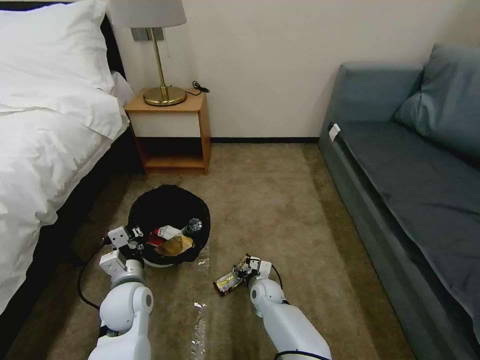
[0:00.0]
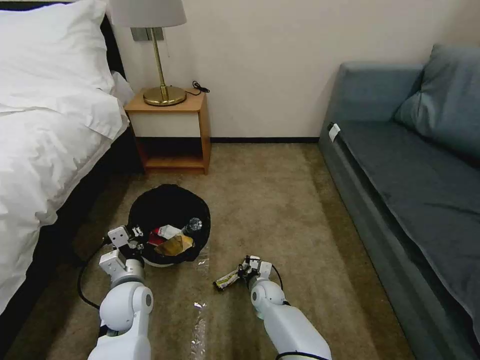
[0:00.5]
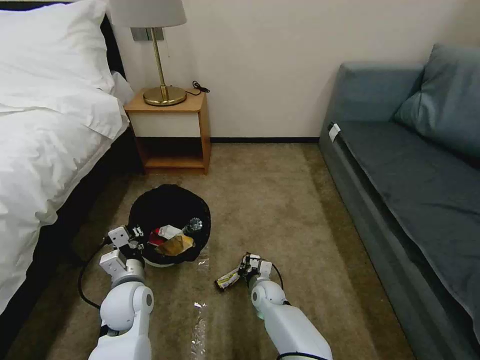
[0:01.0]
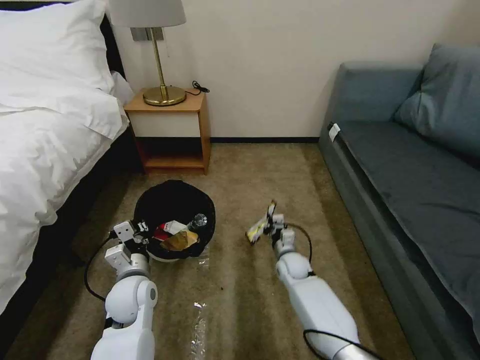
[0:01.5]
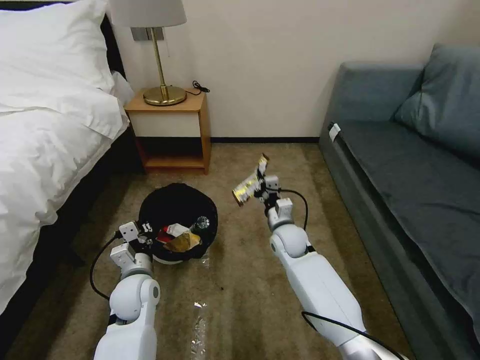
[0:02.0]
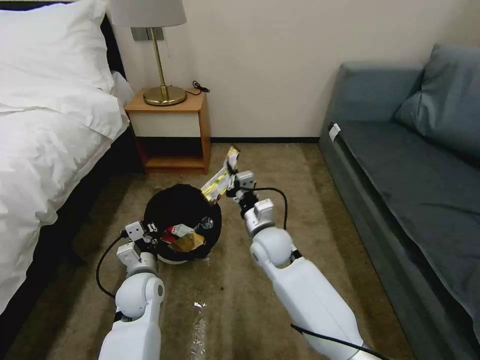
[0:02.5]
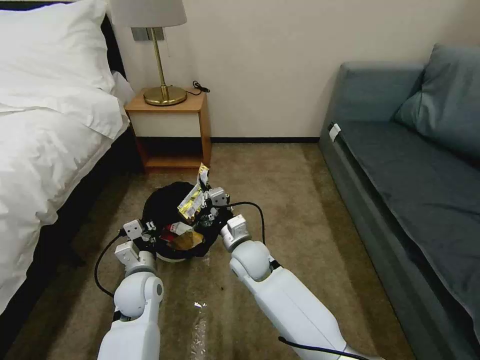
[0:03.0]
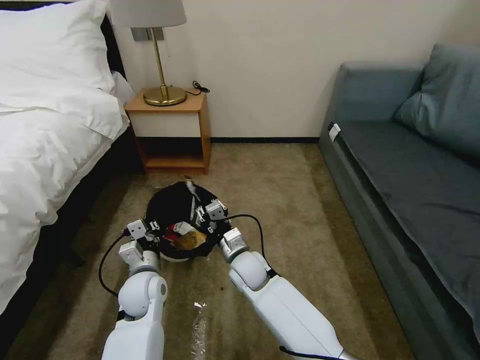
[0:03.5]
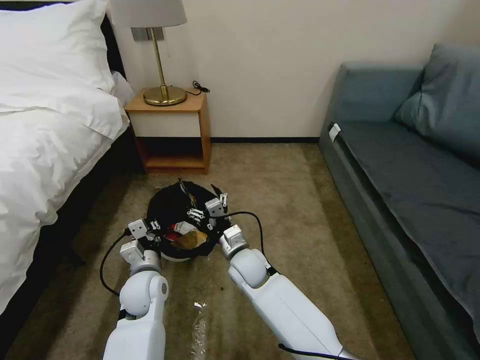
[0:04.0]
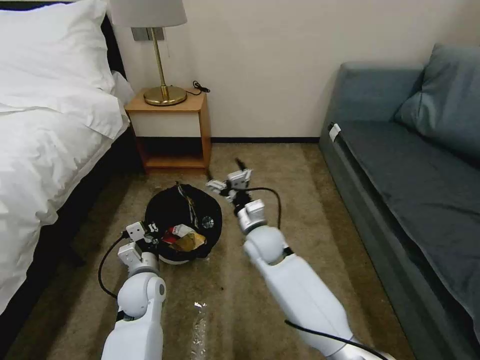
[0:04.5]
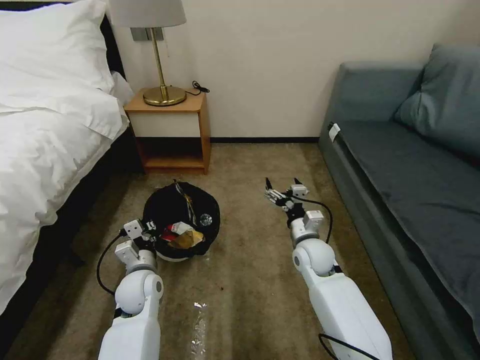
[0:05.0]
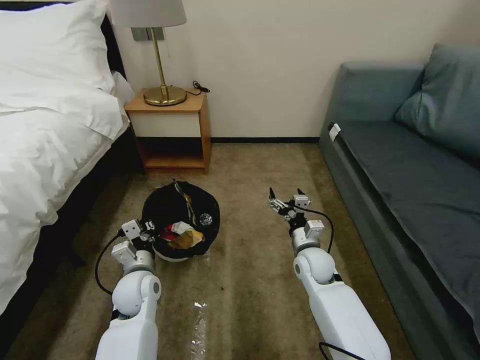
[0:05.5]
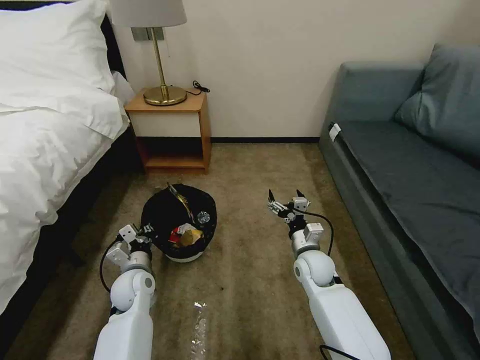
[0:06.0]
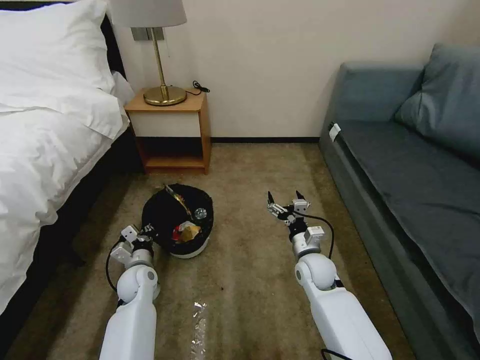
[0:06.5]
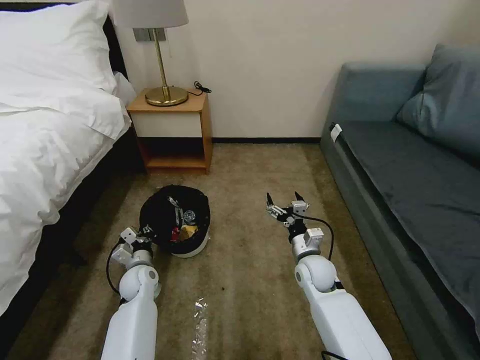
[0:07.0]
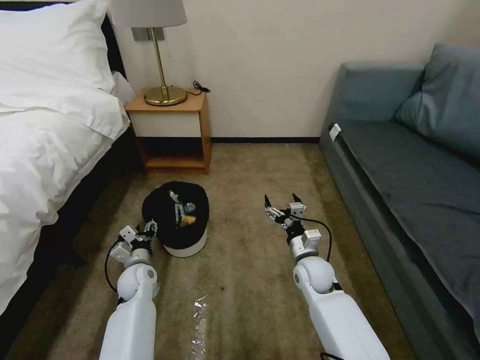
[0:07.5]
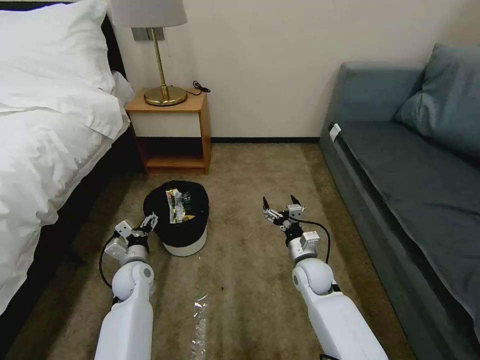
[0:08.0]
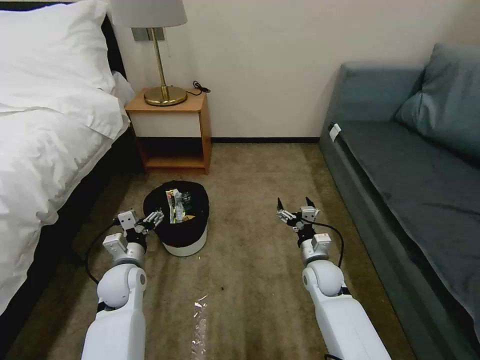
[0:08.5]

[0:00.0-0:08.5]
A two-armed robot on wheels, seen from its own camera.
Task of the whole recording: Pick up the trash bin, then pick up the garbage on the floor and place it into the trash bin.
0:00.0 to 0:02.0: The right gripper goes approximately 20 cm upward and forward, and closes.
0:02.0 to 0:04.0: The right gripper moves to the left and backward, roughly 15 cm, and opens its fingers.
0:04.0 to 0:06.5: The left gripper heads downward, to the left and forward, covering approximately 10 cm; the right gripper shifts approximately 20 cm to the right.
0:06.5 to 0:08.5: The left gripper is displaced upward by roughly 10 cm, and opens.

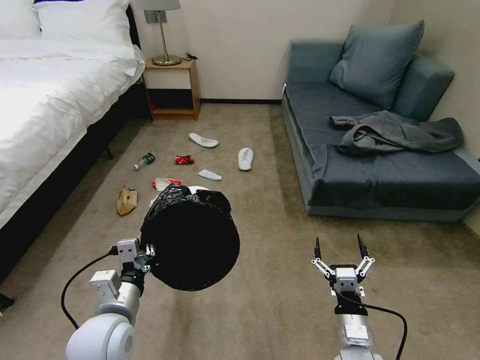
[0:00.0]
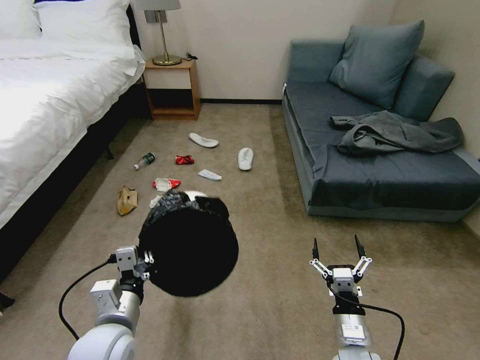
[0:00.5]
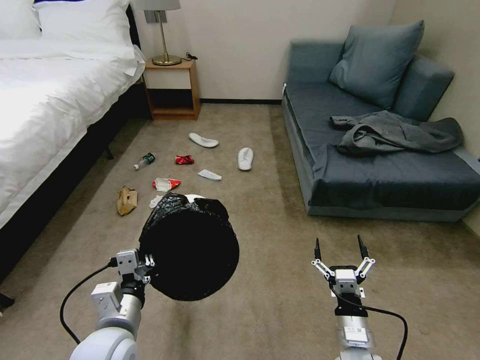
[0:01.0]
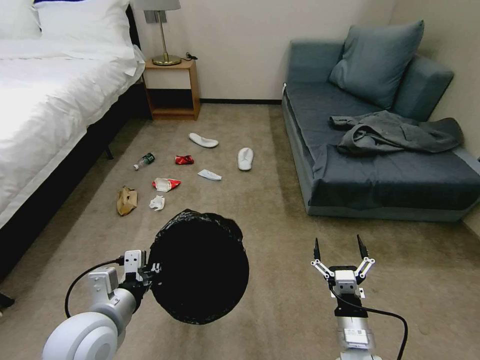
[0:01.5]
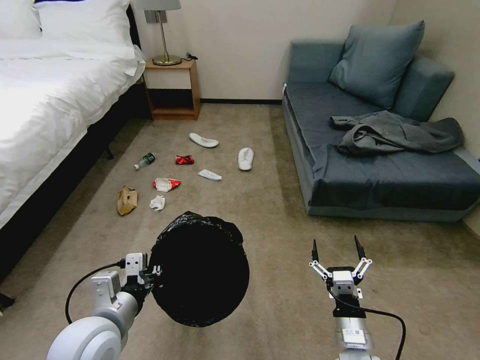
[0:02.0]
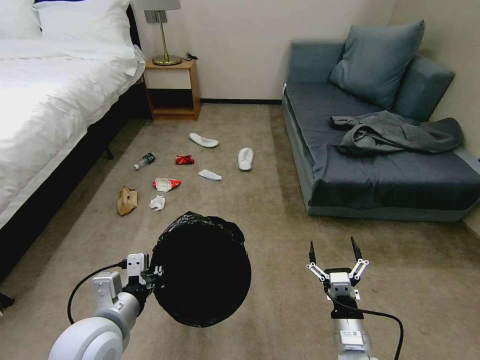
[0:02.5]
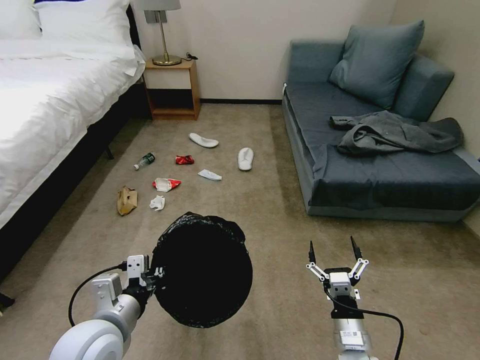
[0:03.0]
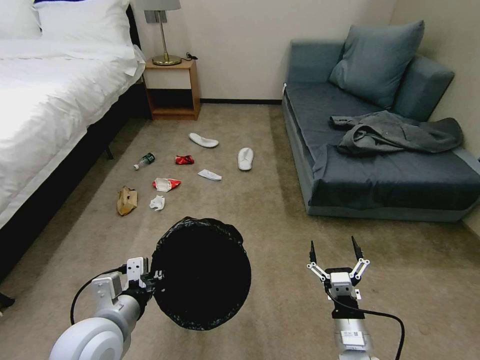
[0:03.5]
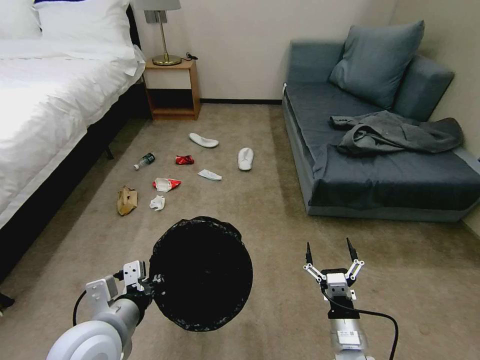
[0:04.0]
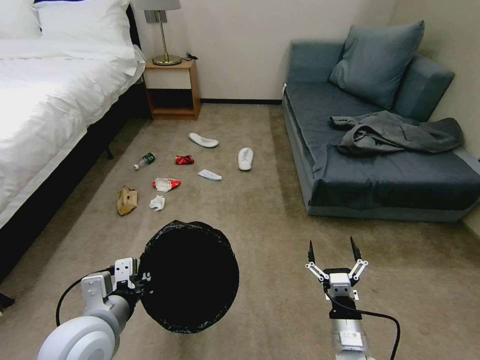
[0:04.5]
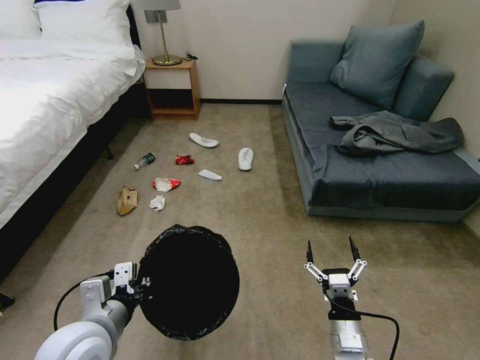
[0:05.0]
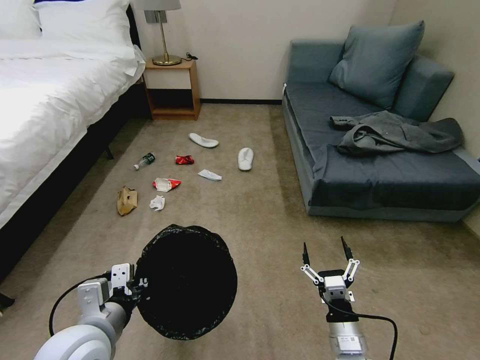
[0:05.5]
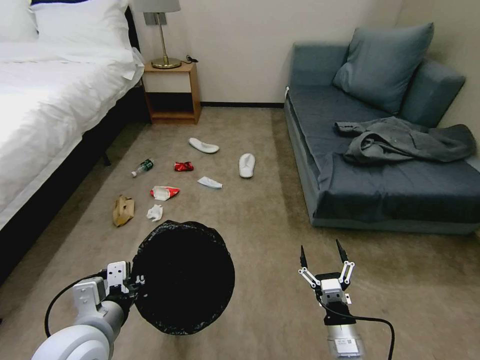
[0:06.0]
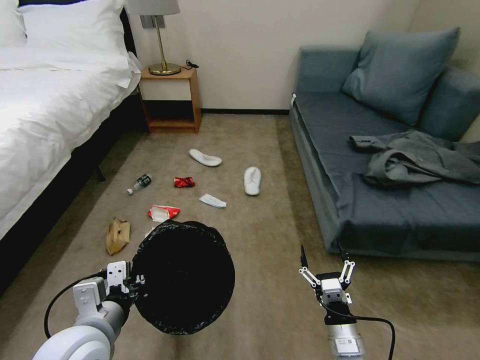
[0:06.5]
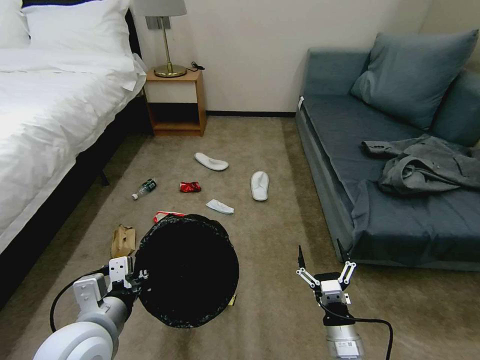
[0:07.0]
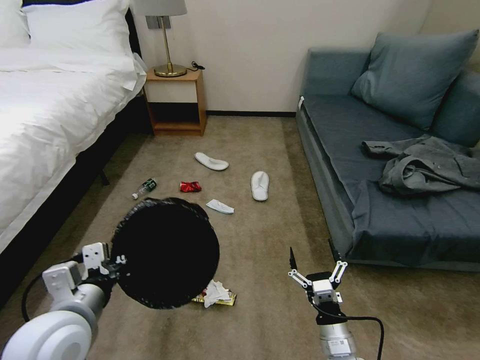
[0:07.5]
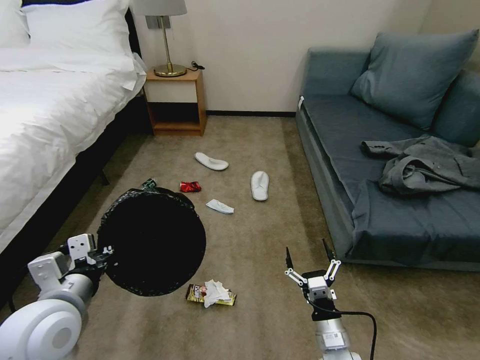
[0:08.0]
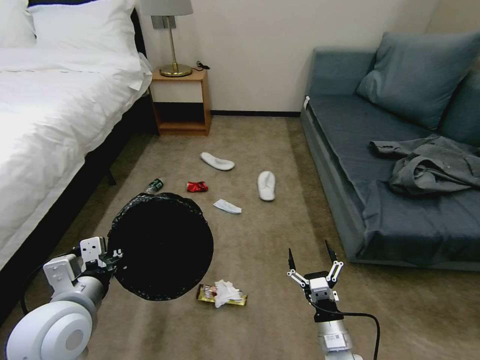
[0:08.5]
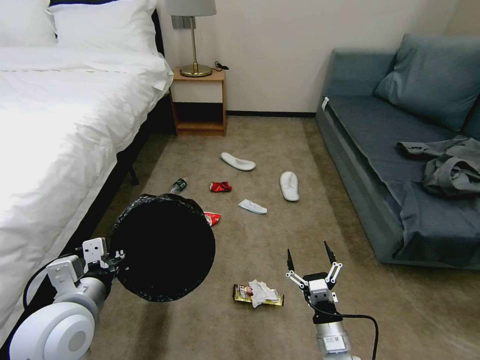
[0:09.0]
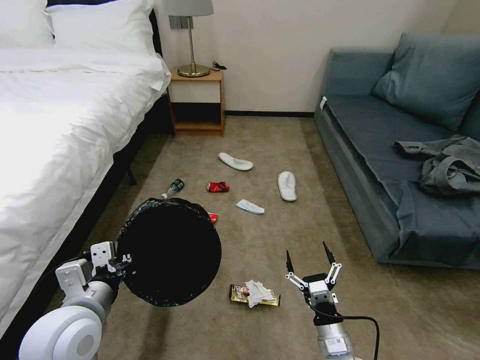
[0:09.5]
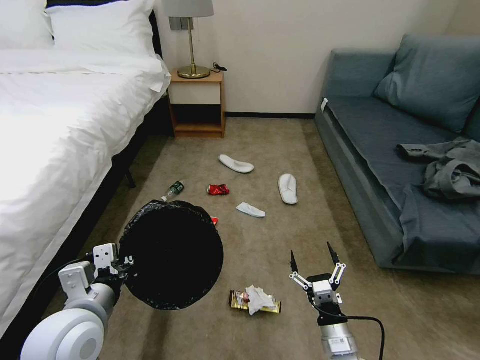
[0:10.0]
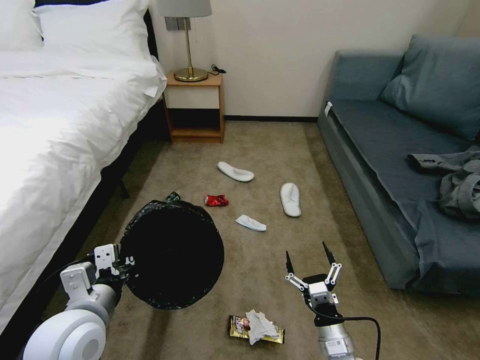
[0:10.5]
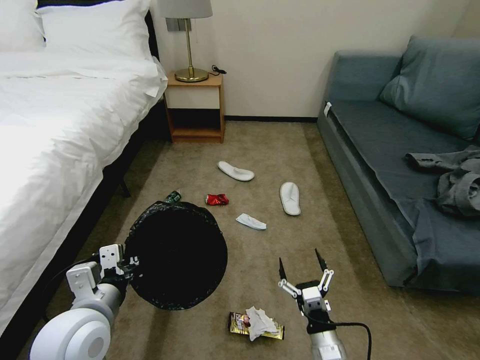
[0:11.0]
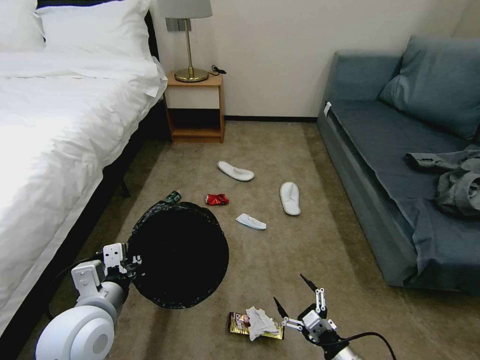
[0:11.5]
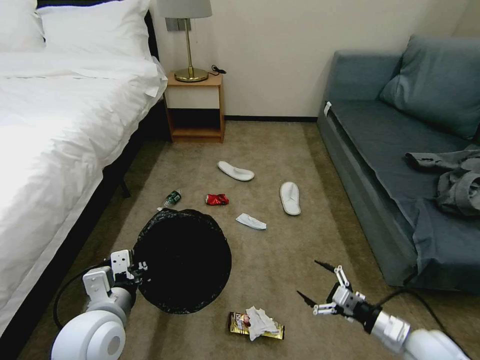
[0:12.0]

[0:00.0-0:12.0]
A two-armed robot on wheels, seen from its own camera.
Task of the whole recording: Pick up the trash bin, then pick up the garbage on the floor and place it into the trash bin.
0:02.0 to 0:04.0: There are only small adjustments of the grippers.
0:06.0 to 0:08.0: The left gripper ends up approximately 5 cm from where it was.
0:10.0 to 0:12.0: The right gripper shifts roughly 15 cm to the right and upward.

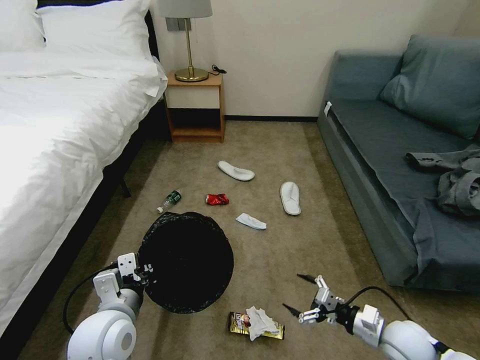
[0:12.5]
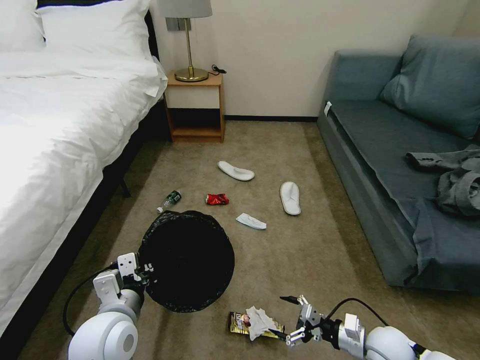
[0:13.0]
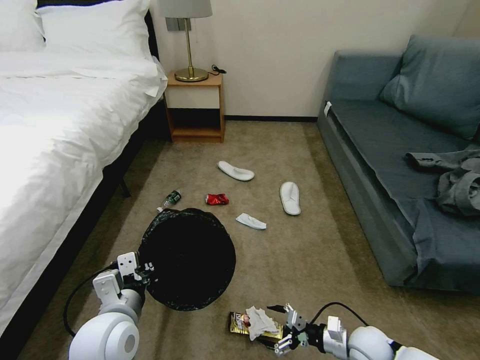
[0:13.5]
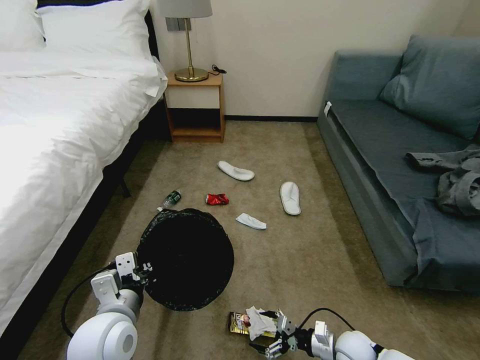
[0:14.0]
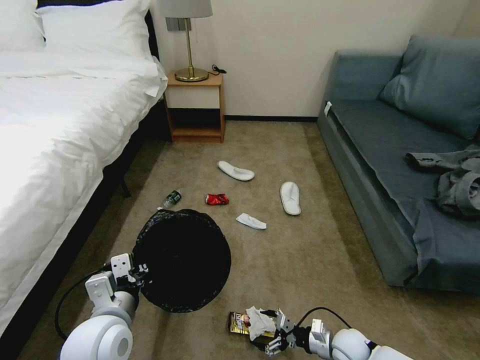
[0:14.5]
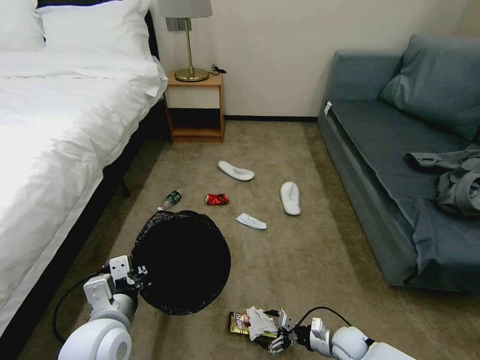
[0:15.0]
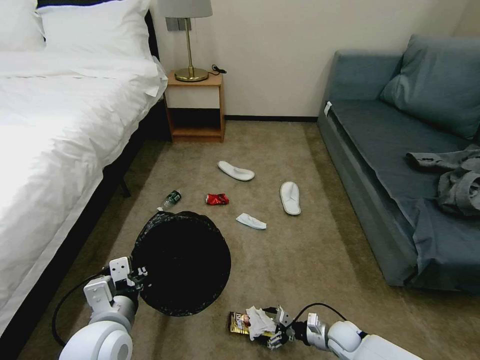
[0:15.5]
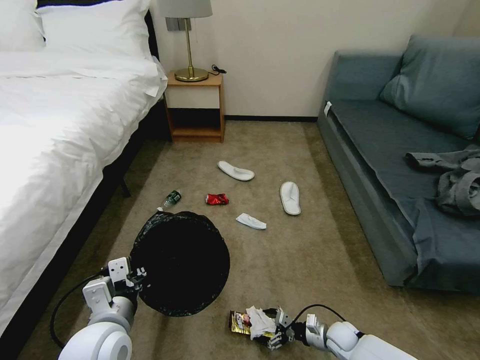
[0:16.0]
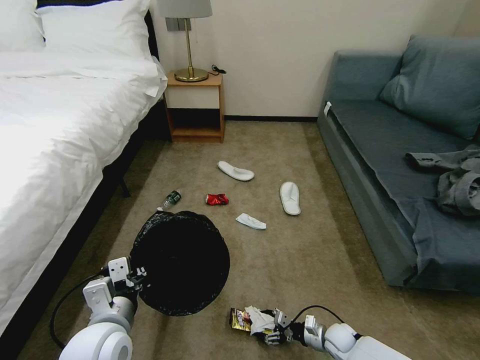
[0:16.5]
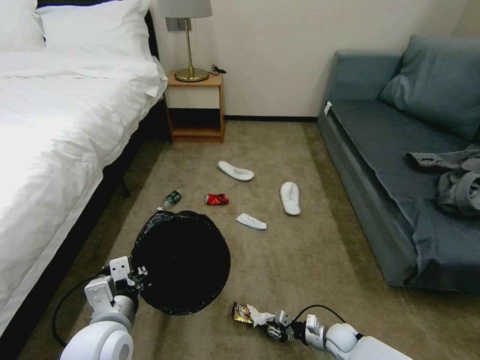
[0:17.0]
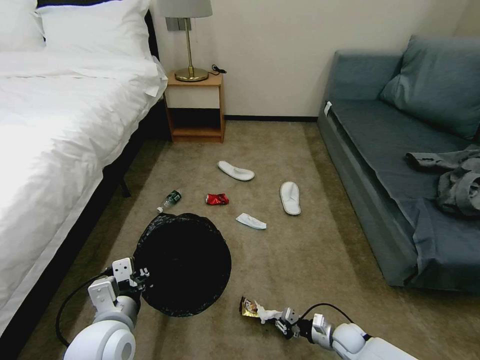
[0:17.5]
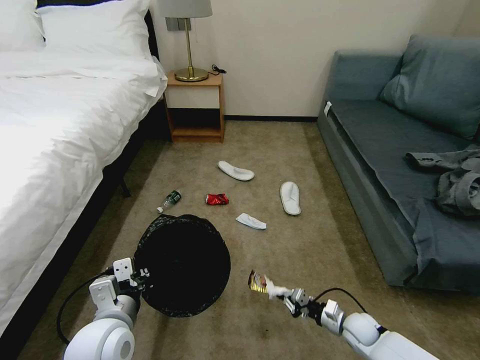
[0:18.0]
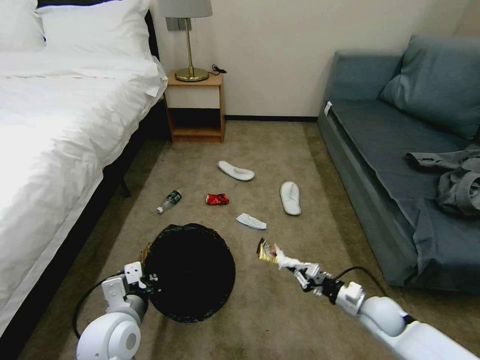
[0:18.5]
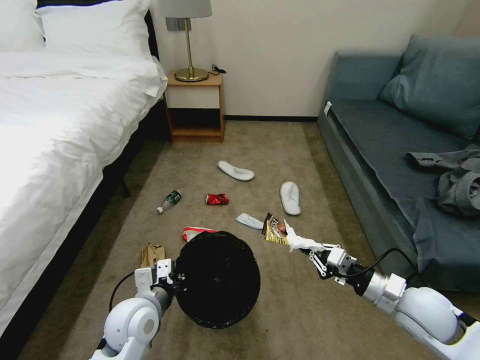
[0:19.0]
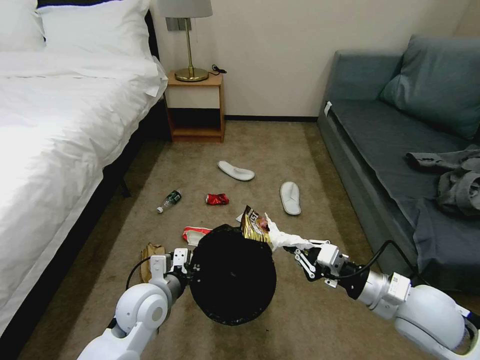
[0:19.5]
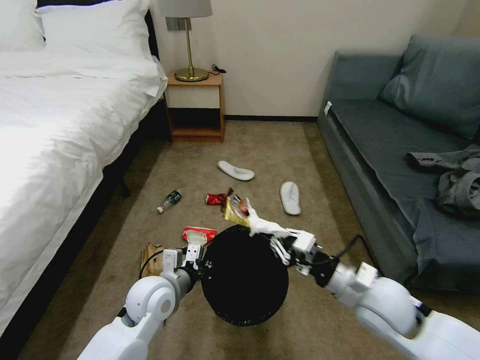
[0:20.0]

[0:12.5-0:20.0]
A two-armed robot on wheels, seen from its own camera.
Task of the whole recording: Pick up the trash bin, then pick up the garbage on the floor and place it into the trash bin.
0:12.5 to 0:14.5: The right gripper heads downward and to the left, covering approximately 15 cm.
0:14.5 to 0:16.5: The right gripper is displaced downward by about 5 cm.
0:16.5 to 0:18.0: The right gripper travels upward by some 5 cm, and closes up.
0:18.0 to 0:20.0: The left gripper shifts approximately 10 cm forward. Meanwhile the right gripper goes approximately 30 cm upward.
